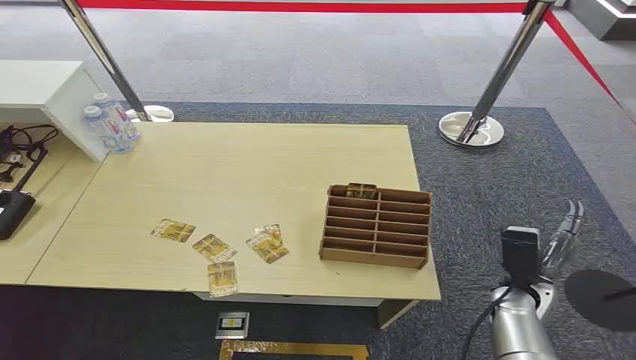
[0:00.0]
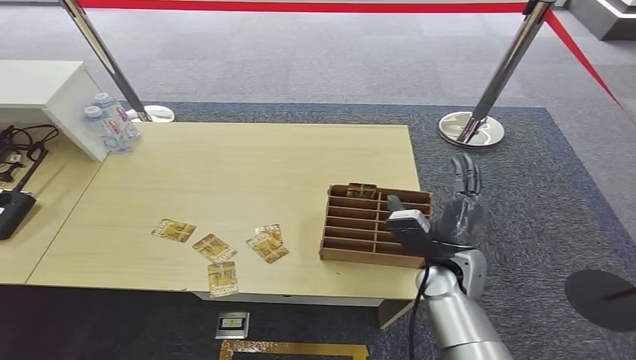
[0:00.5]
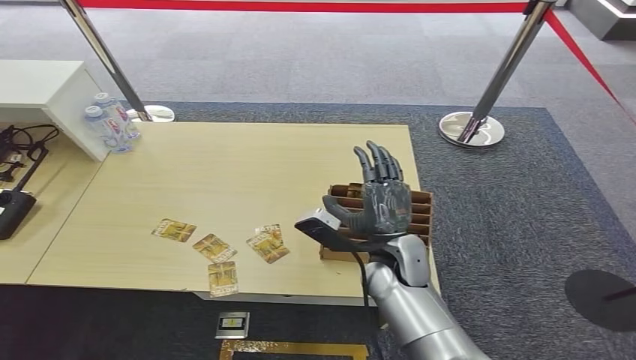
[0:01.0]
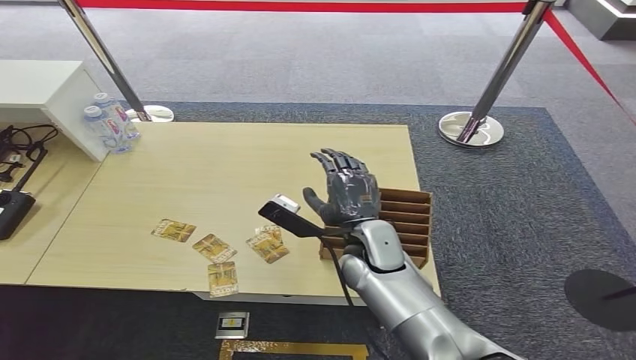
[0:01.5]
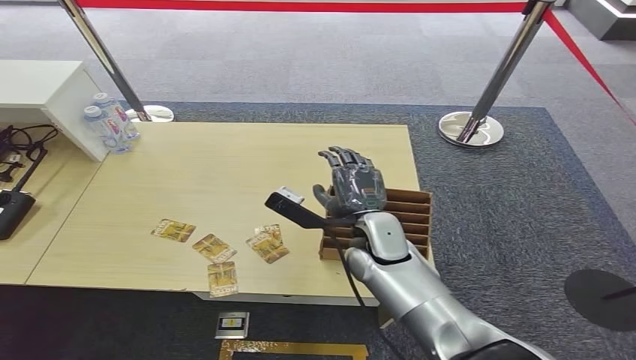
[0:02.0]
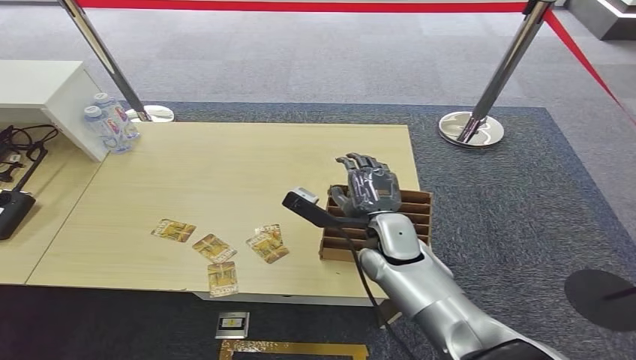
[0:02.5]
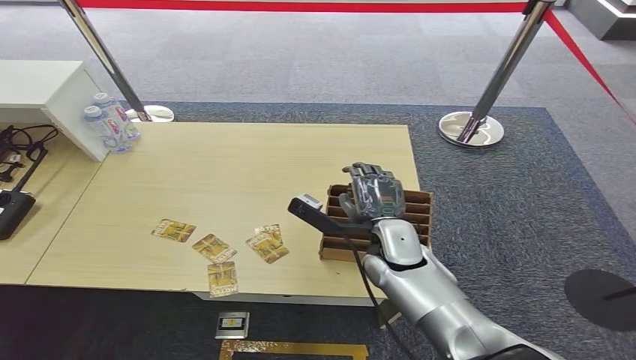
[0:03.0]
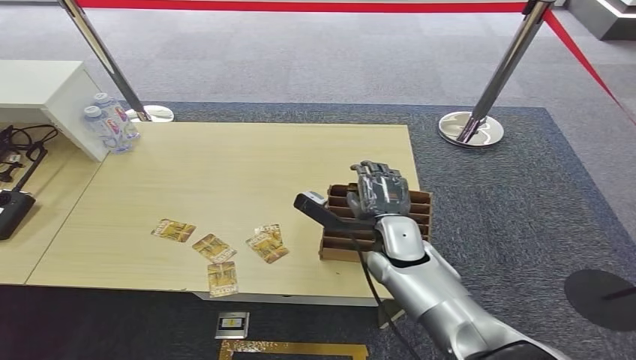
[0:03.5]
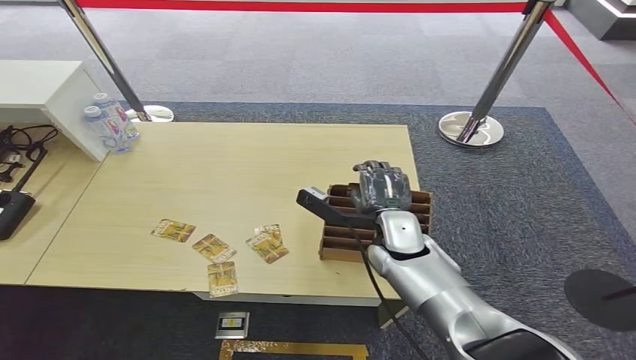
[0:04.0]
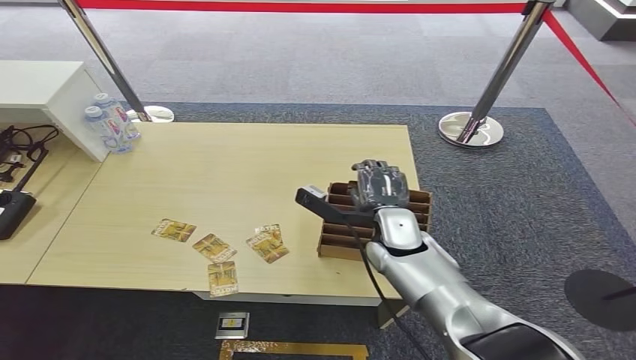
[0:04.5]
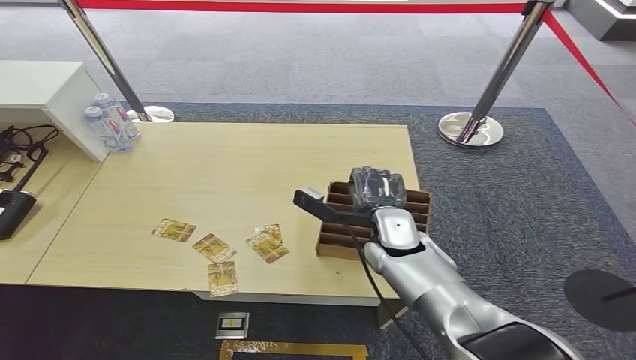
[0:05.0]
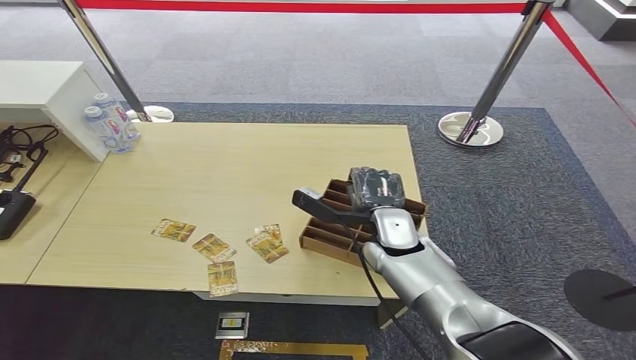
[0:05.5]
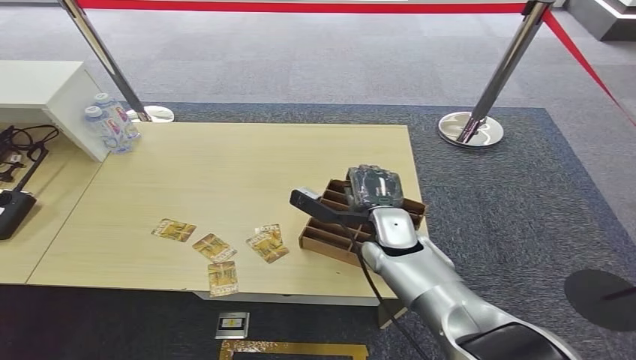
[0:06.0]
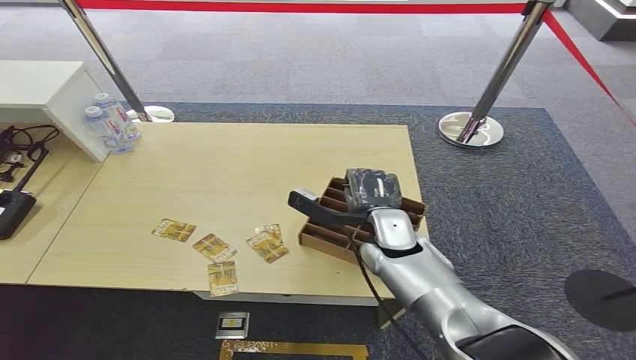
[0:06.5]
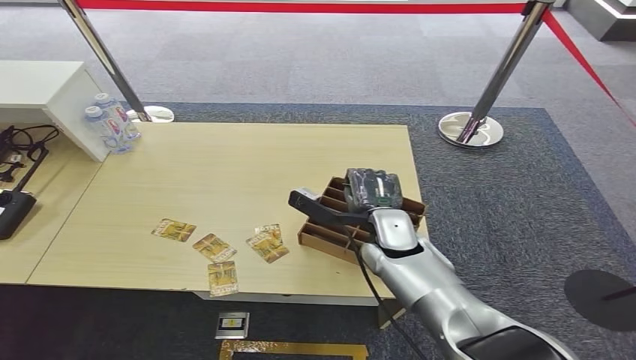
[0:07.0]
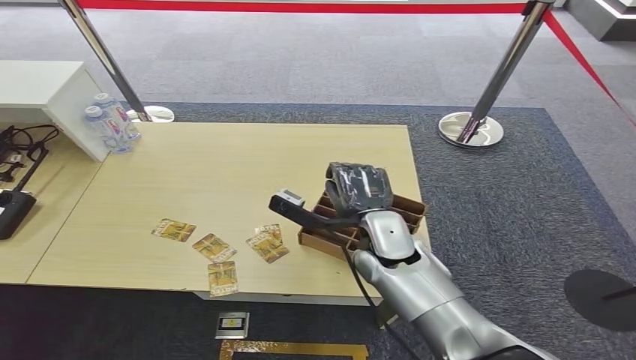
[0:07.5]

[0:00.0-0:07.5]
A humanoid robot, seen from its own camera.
Step, 0:00.0 to 0:07.5: Pick up the key card from the card box.
0:02.0 to 0:04.0: There are only small adjustments of the hands.
0:04.0 to 0:05.5: Neither hand changes place.
0:05.5 to 0:07.5: The hands move only a little.

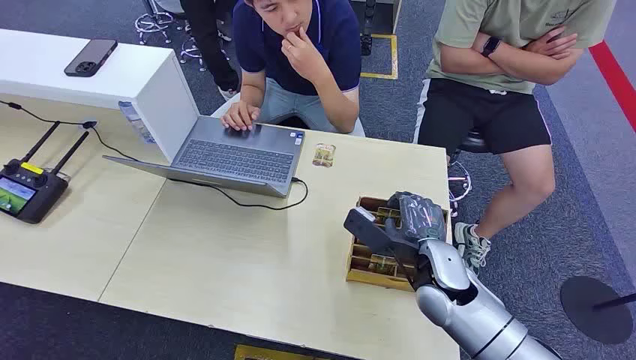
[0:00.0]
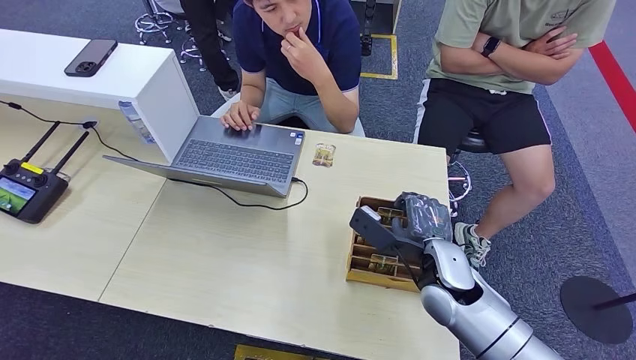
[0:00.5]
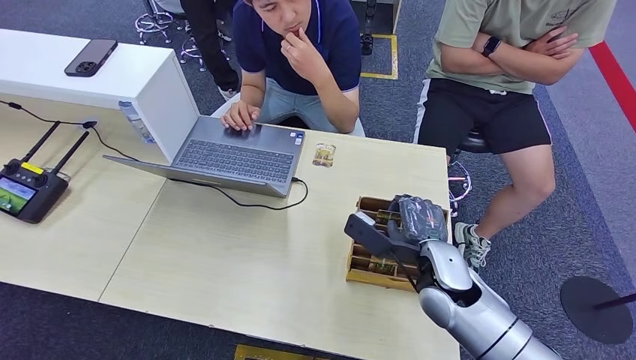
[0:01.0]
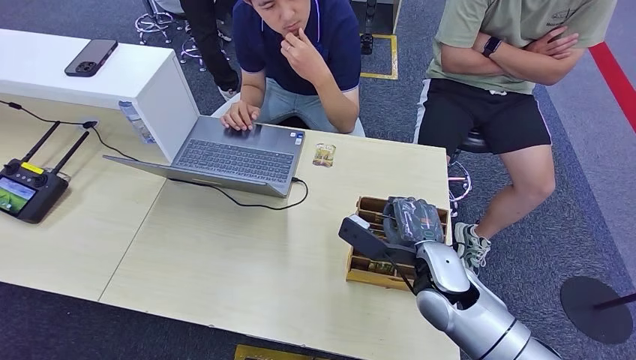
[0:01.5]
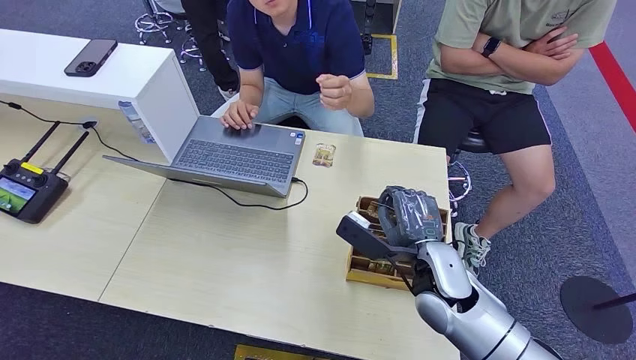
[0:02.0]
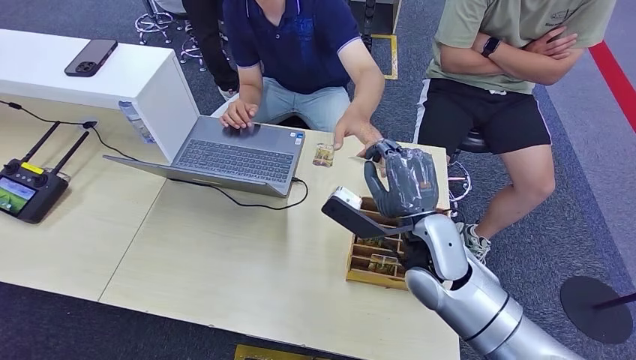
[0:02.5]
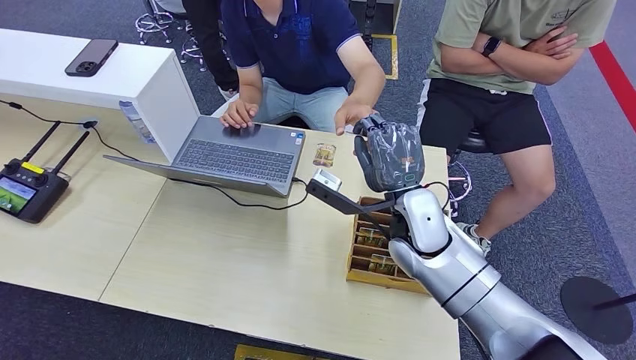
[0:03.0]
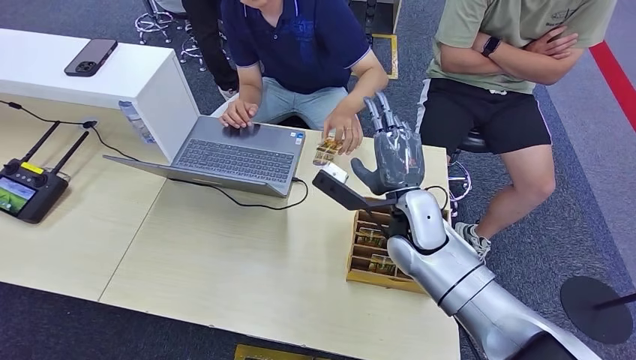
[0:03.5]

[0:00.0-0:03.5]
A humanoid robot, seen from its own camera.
Step, 0:00.0 to 0:02.0: Pick up the key card from the card box.
Step, 0:02.5 to 0:03.5: Hand the key card to the target.
0:02.0 to 0:03.5: The right hand travels forward by some 5 cm.
